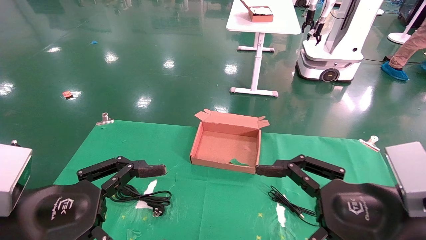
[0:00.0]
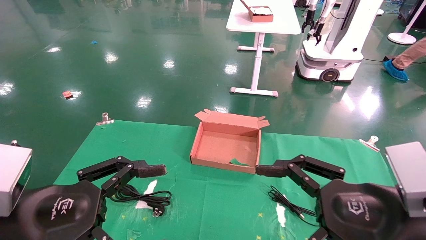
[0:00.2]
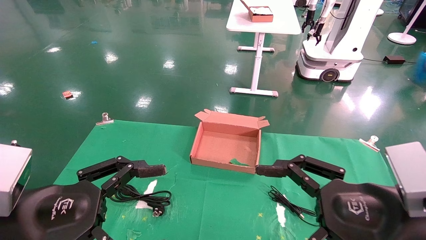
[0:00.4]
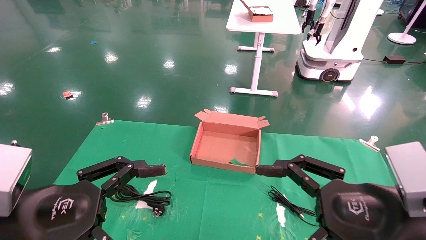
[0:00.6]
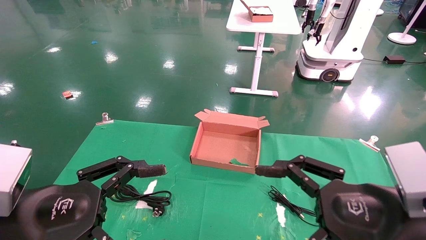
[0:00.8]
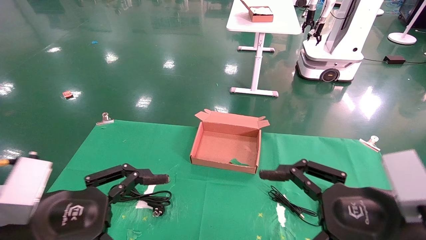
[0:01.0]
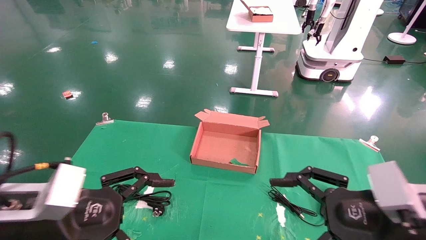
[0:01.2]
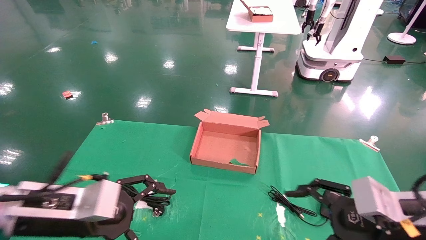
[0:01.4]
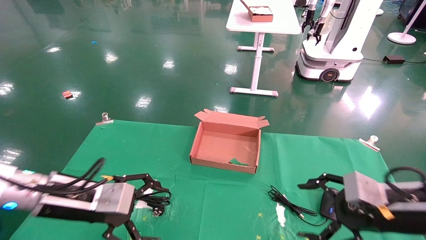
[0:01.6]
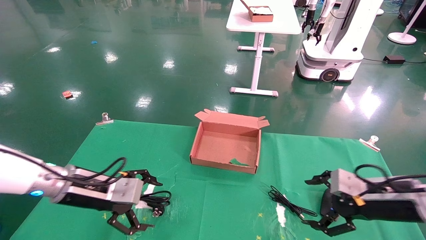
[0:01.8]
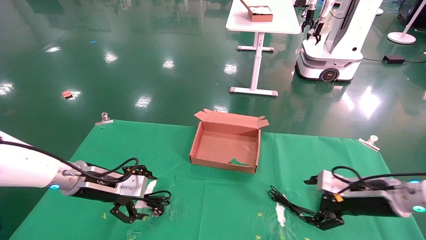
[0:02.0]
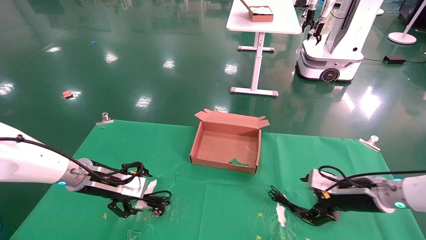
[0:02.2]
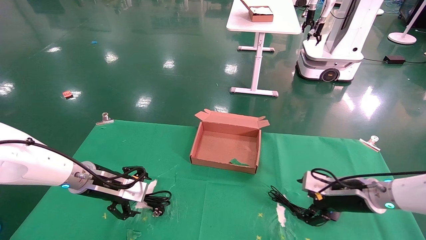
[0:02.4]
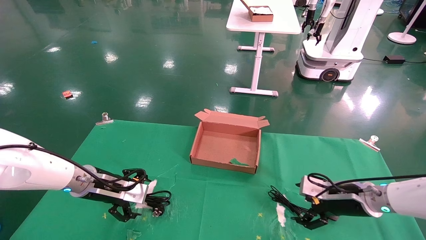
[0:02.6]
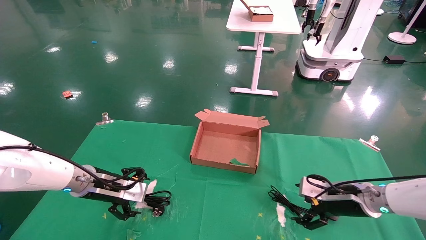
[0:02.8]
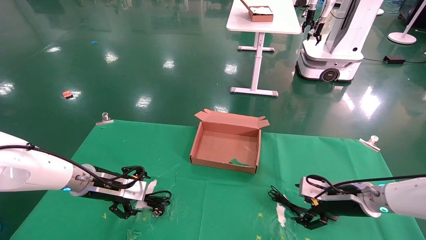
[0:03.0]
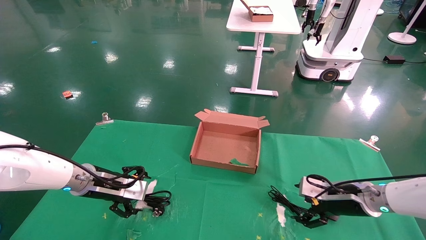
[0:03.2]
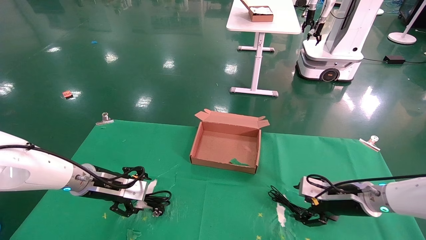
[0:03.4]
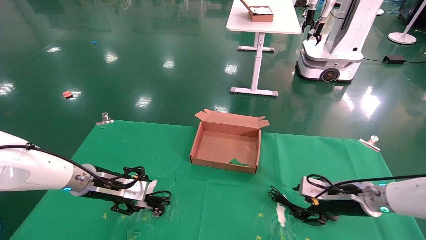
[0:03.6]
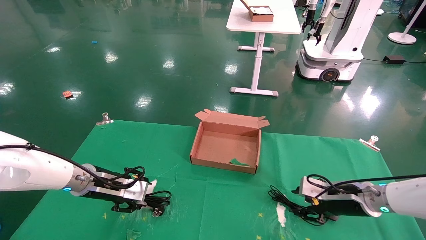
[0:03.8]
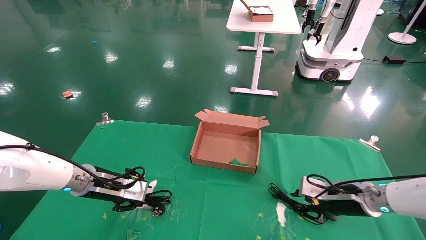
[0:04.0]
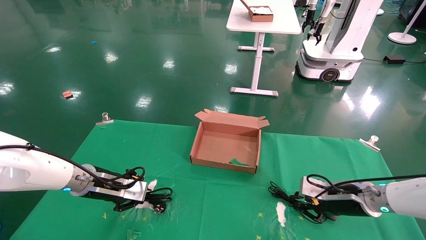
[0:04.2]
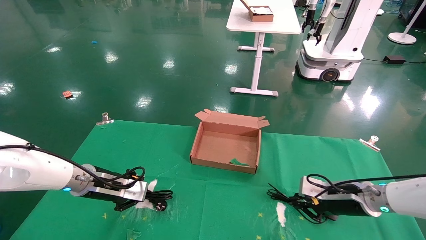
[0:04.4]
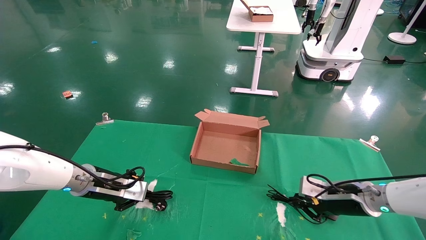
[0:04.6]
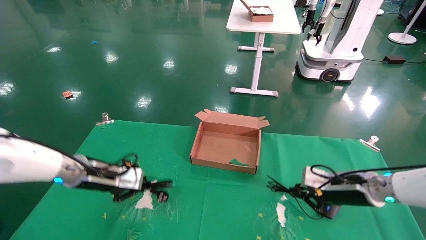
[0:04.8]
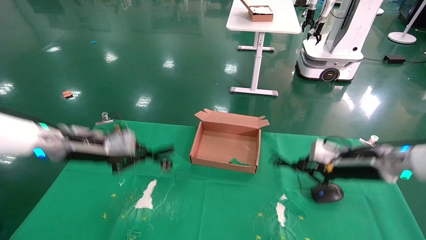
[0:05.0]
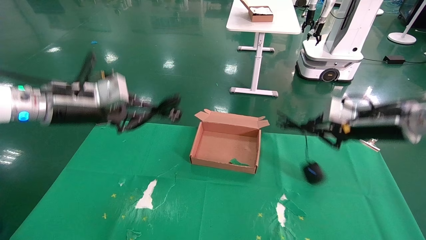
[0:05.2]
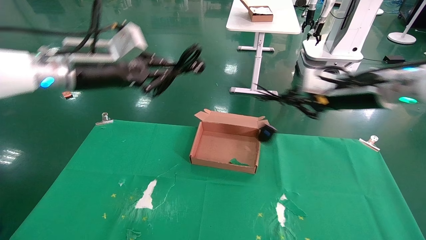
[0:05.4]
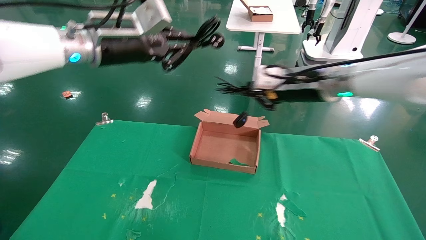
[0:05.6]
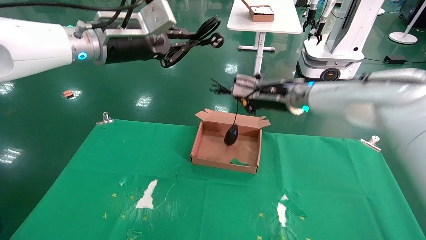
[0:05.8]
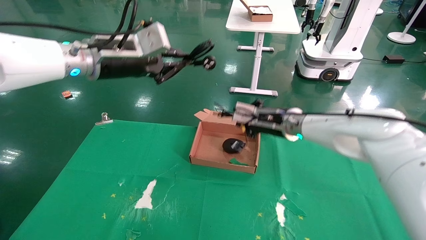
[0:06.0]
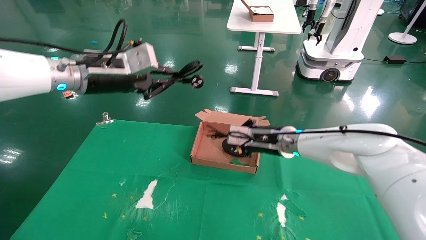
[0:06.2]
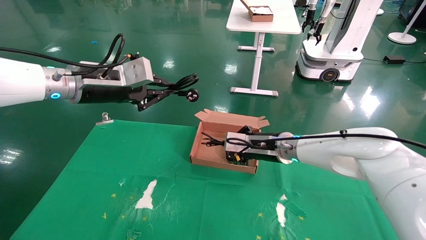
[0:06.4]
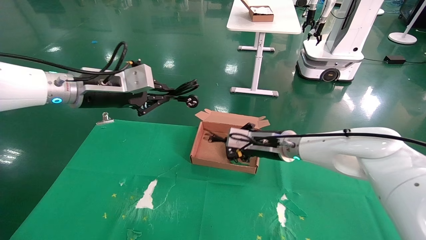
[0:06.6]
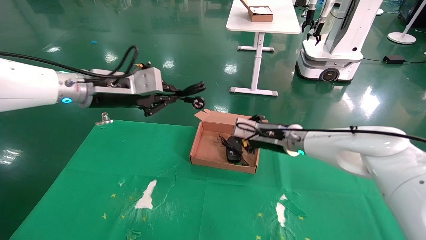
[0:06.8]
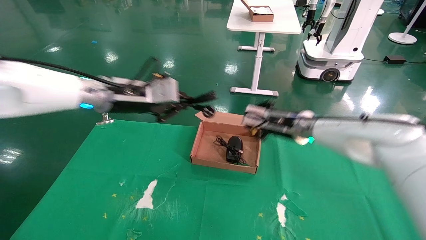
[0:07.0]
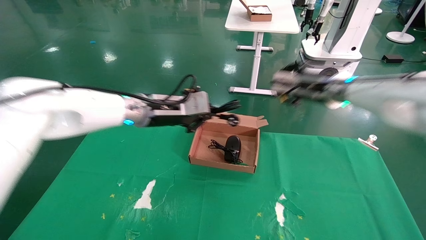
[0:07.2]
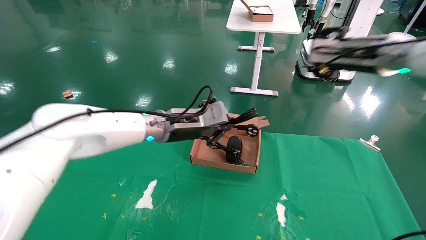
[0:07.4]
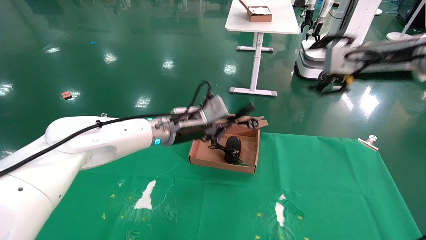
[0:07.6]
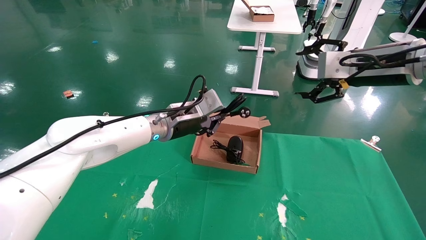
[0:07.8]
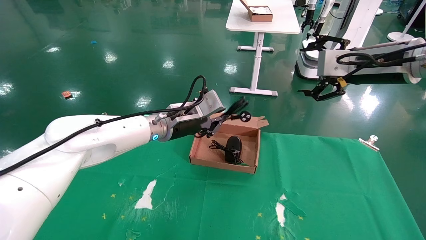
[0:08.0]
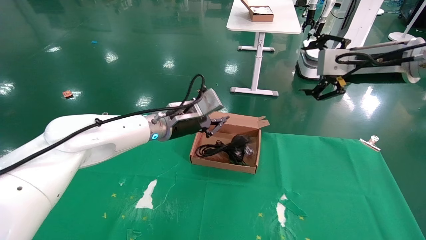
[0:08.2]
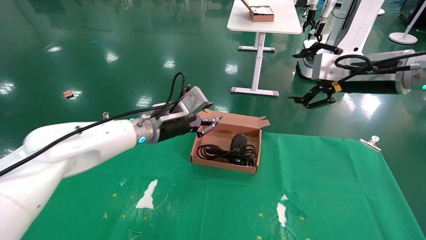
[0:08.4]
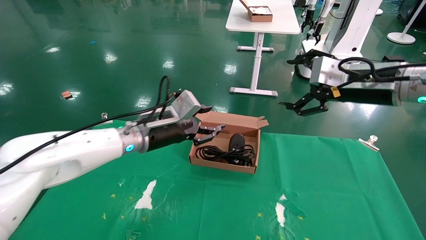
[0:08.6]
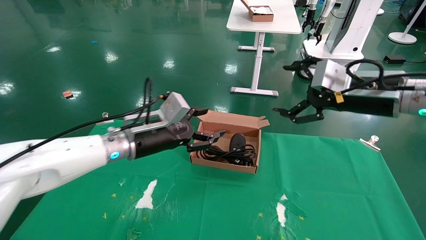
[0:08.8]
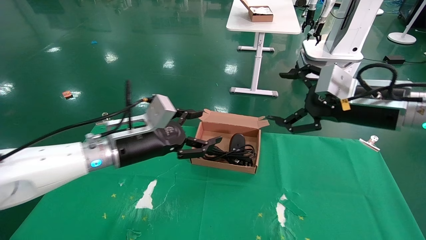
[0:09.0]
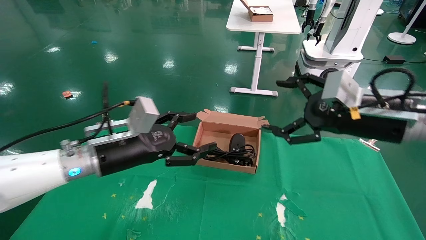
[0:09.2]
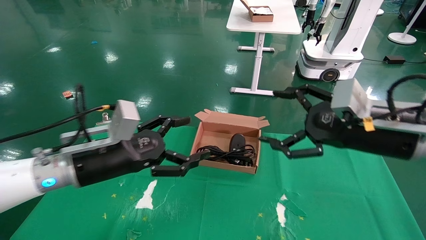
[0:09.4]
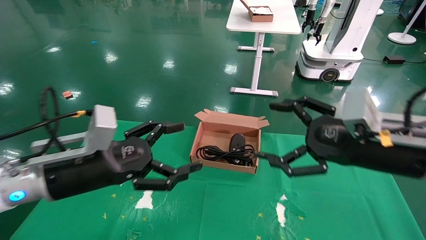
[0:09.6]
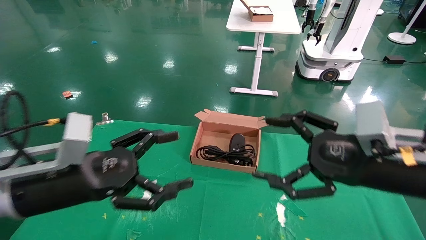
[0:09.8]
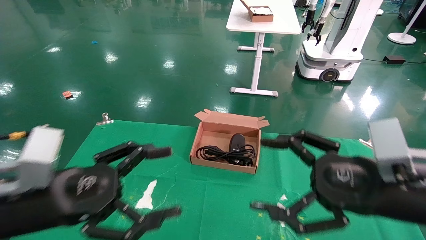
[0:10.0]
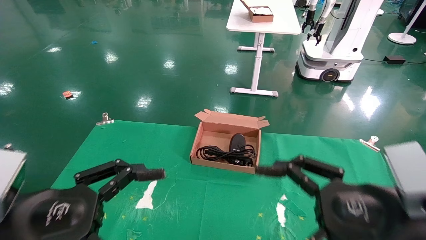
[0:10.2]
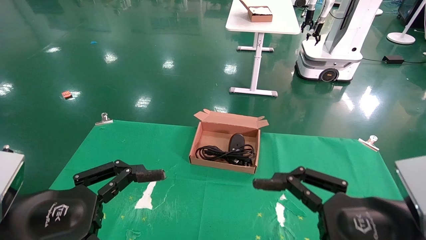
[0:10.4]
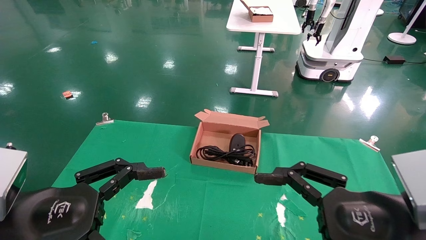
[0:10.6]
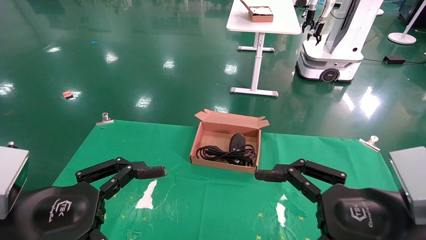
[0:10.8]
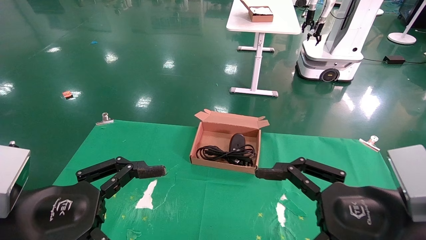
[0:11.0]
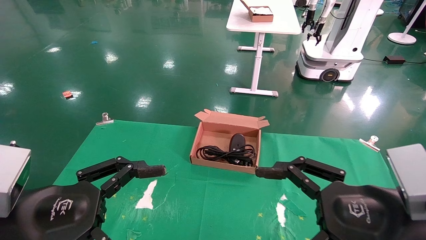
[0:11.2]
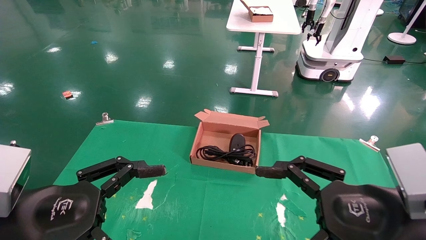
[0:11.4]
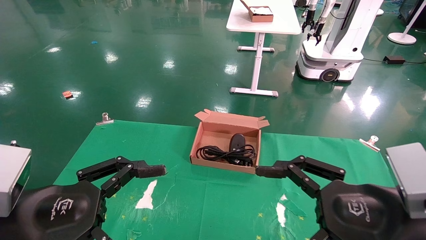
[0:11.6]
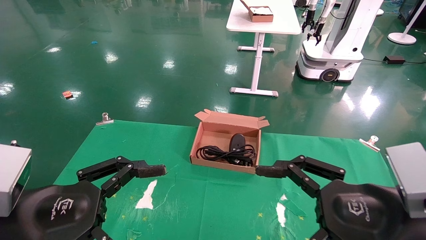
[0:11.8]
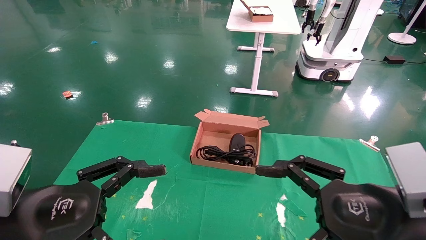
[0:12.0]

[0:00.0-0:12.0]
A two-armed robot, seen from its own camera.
Step, 0:01.8 to 0:05.2: Grab and lift both the mouse and power cord from the accessory packaging area at the same time.
Step, 0:05.4 to 0:10.2: Place the mouse and power cord into the box.
0:00.0 to 0:01.6: The left gripper heads forward, covering roughly 15 cm, while the right gripper is displaced forward, to the right and downward by about 15 cm.
0:01.6 to 0:03.0: The left gripper travels forward by about 10 cm; the right gripper moves forward and downward, about 15 cm.
0:03.0 to 0:04.4: The left gripper closes. Meanwhile the right gripper closes its fingers.
0:04.4 to 0:06.0: The left gripper goes approximately 25 cm upward; the right gripper heads to the left, upward and forward, covering approximately 25 cm.
0:06.0 to 0:07.6: The left gripper moves downward, to the right and forward, roughly 20 cm, while the right gripper travels to the right, upward and backward by about 25 cm, and opens.
0:07.6 to 0:09.0: The left gripper heads to the left and backward, covering some 10 cm, and opens its fingers. Meanwhile the right gripper travels downward by roughly 10 cm.
0:09.0 to 0:10.4: The left gripper goes some 20 cm backward and to the left. The right gripper travels backward and downward by some 20 cm.
0:10.4 to 0:12.0: The two grippers keep their place.

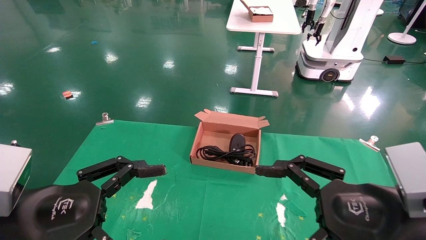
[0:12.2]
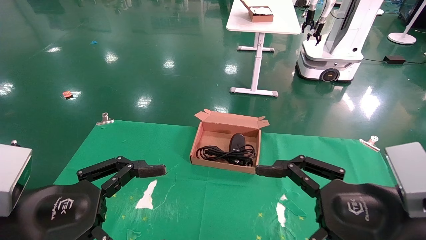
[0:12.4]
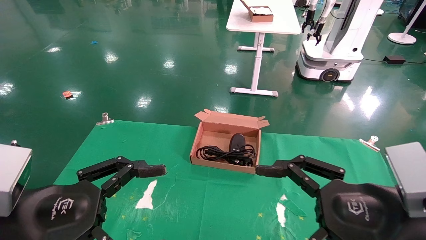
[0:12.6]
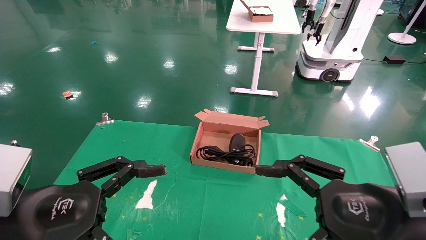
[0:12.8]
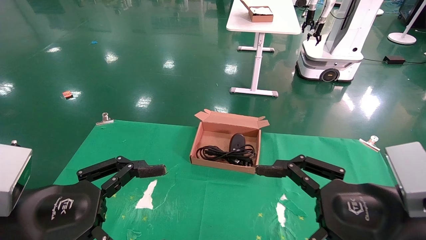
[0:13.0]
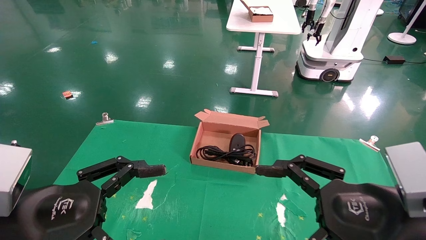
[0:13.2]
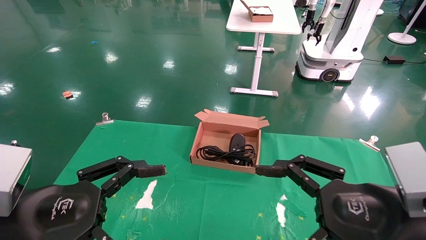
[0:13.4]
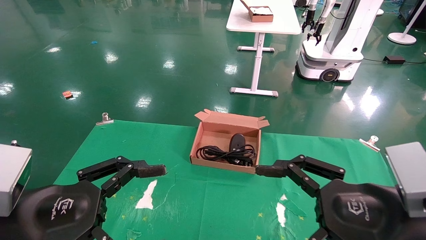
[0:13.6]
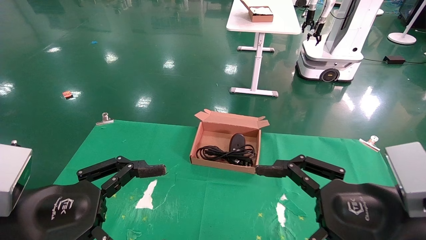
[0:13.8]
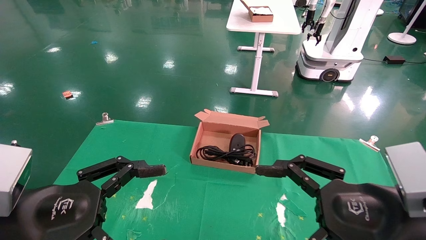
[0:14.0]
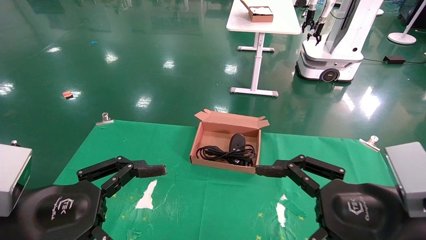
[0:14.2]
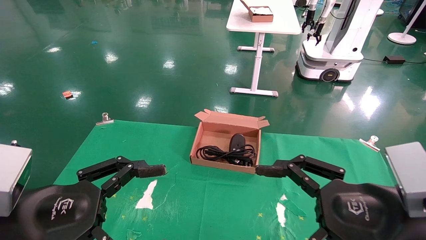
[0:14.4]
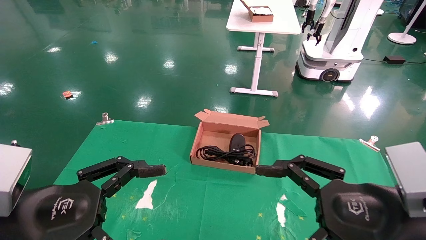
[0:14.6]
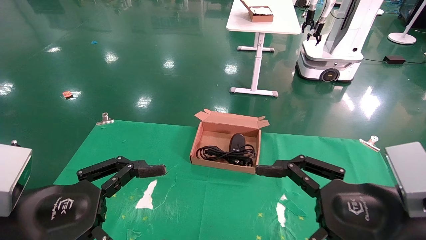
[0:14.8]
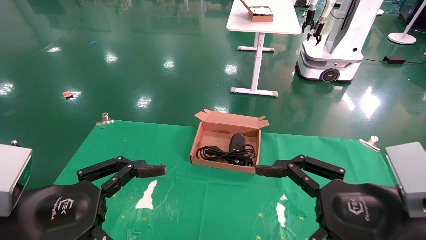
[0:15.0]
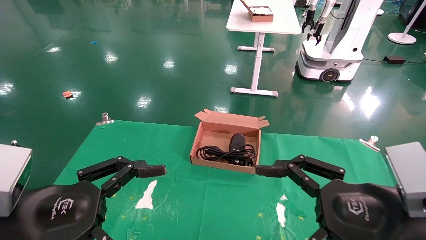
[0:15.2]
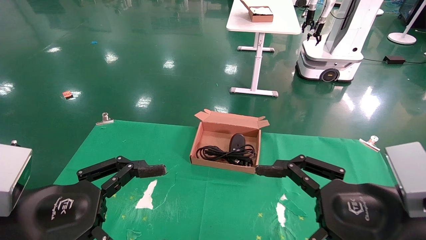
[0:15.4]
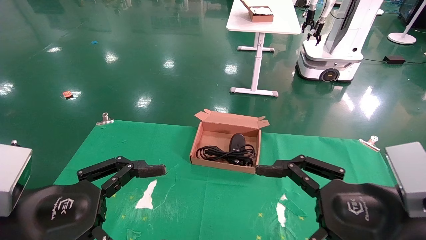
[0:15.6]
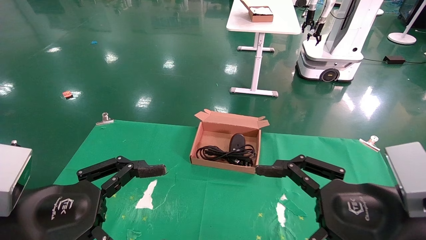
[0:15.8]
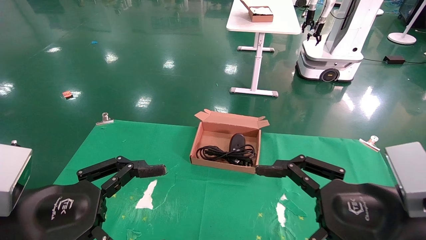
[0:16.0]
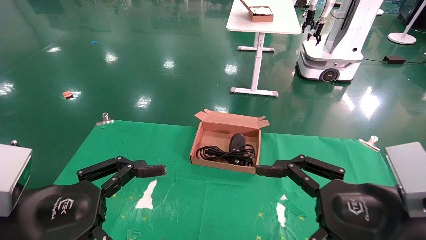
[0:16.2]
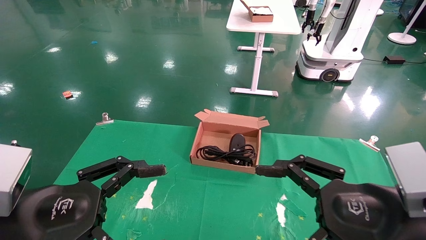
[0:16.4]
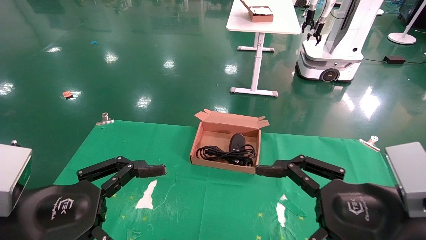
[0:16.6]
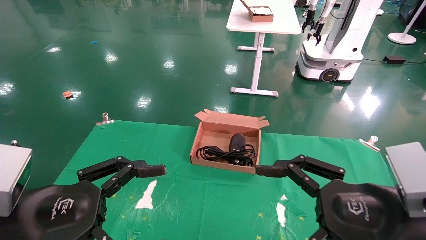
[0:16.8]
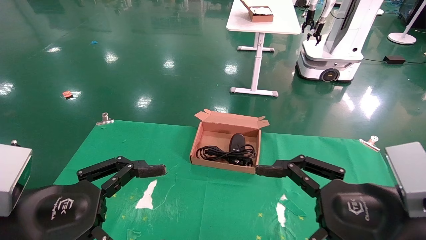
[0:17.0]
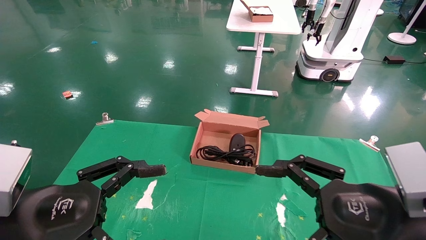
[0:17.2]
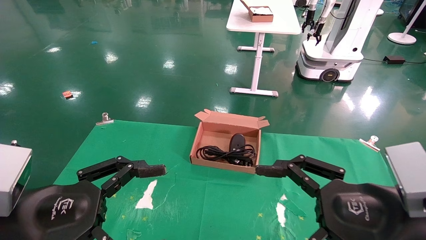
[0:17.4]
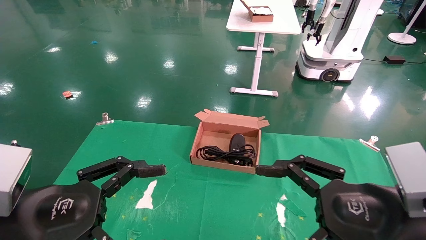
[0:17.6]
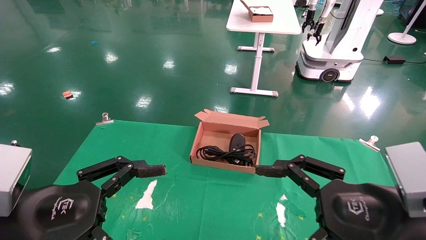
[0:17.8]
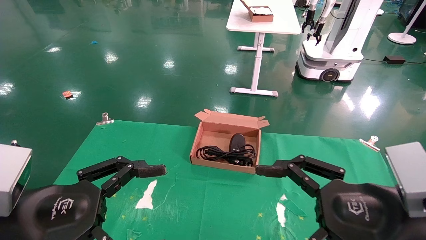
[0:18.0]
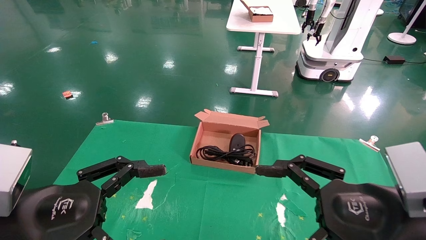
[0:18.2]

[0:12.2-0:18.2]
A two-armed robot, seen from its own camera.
0:12.2 to 0:18.2: Both grippers stay put.
